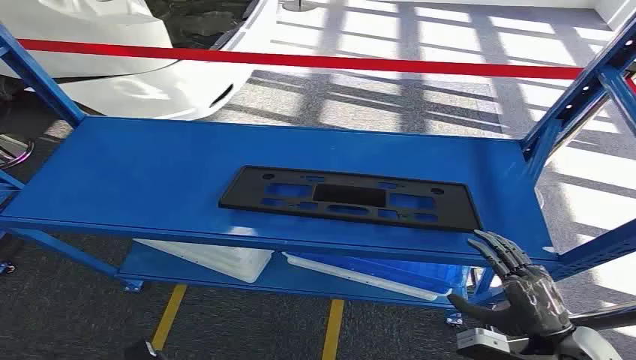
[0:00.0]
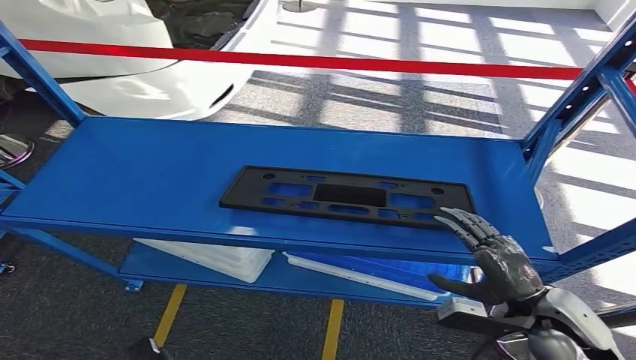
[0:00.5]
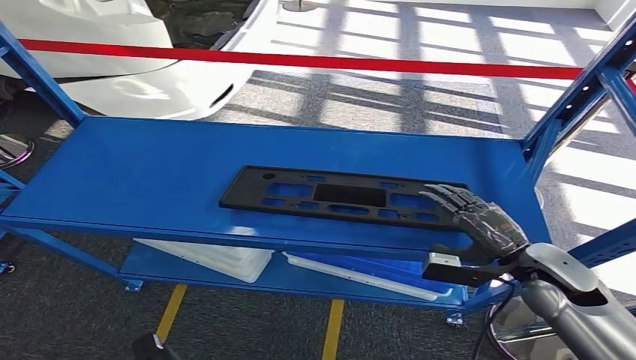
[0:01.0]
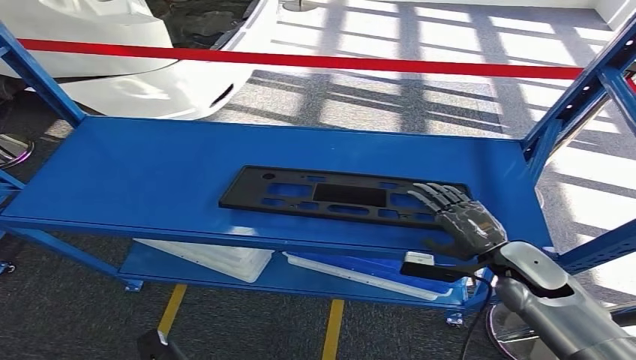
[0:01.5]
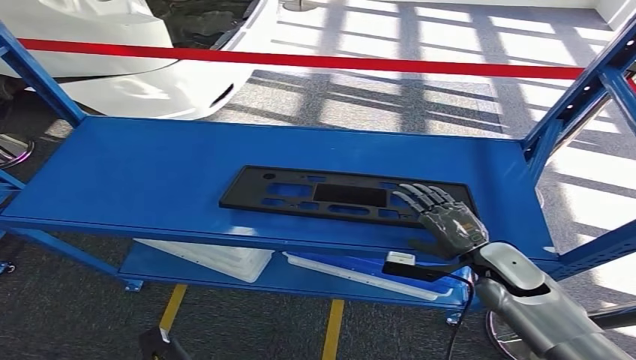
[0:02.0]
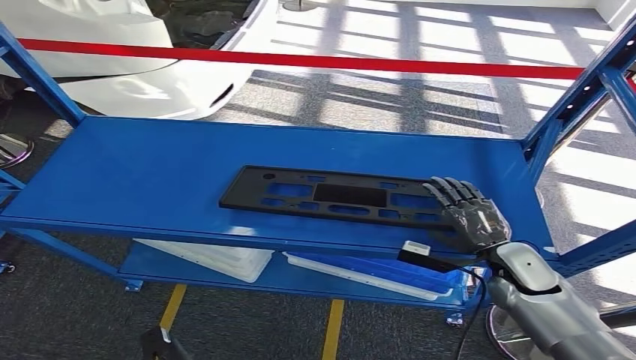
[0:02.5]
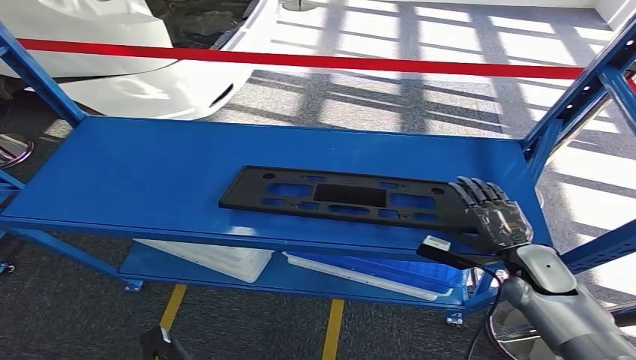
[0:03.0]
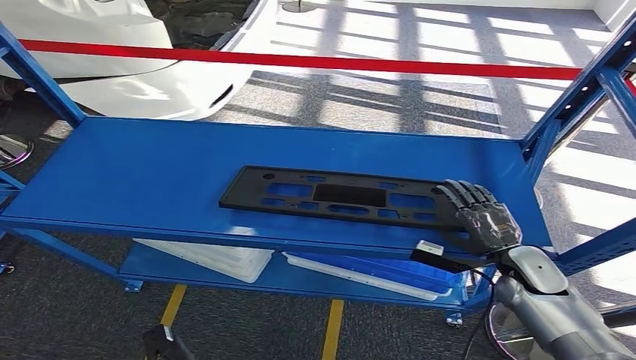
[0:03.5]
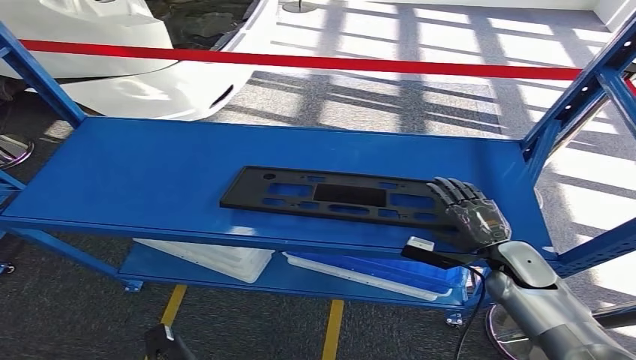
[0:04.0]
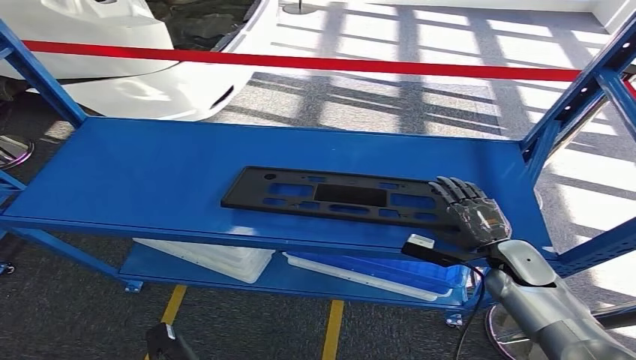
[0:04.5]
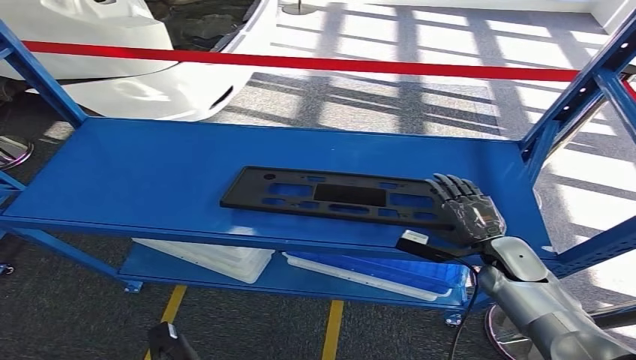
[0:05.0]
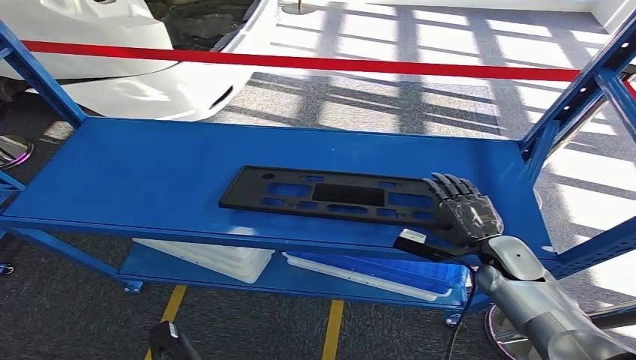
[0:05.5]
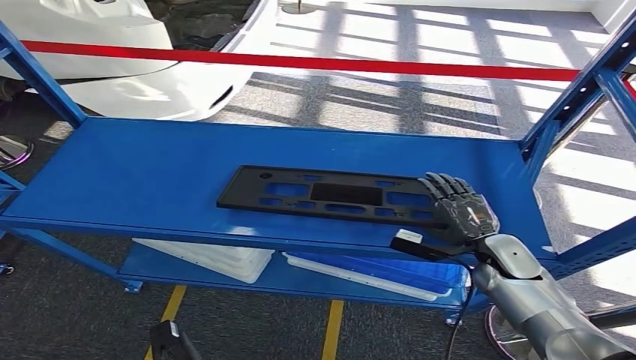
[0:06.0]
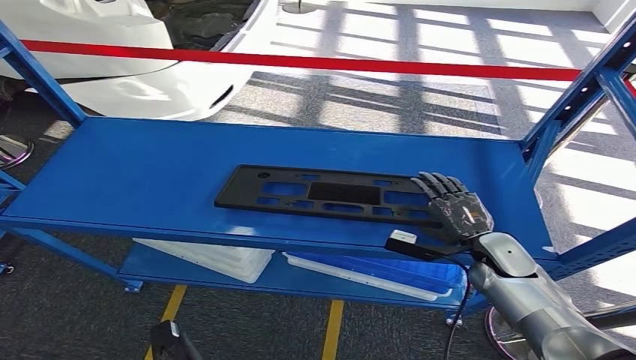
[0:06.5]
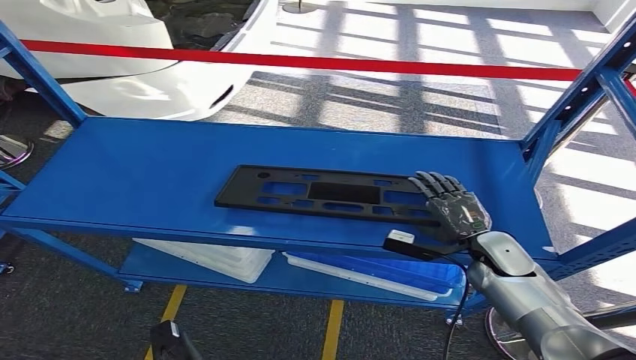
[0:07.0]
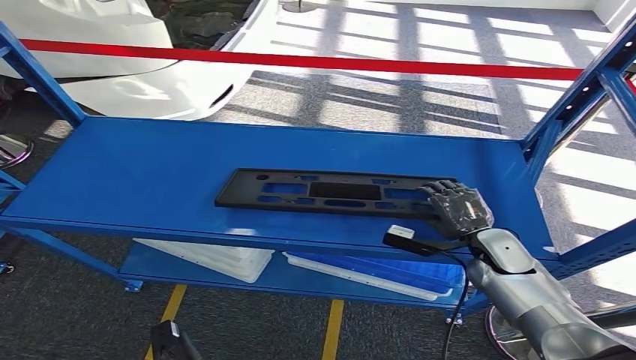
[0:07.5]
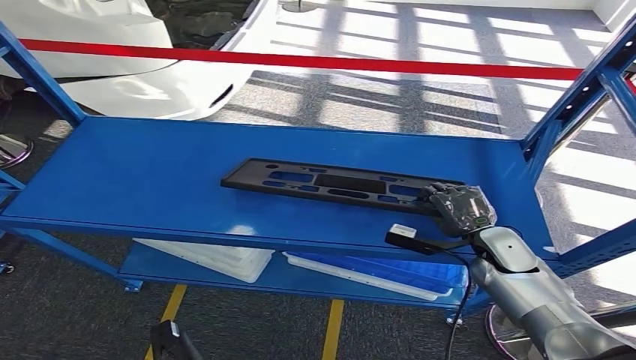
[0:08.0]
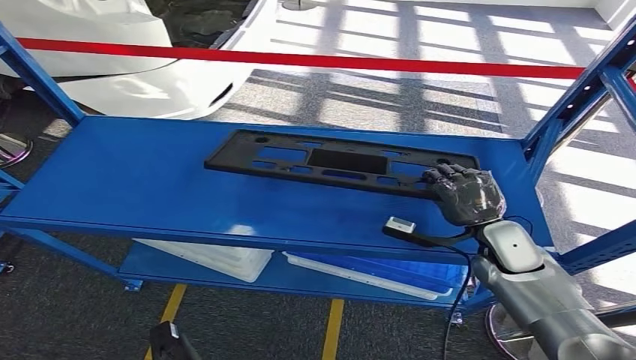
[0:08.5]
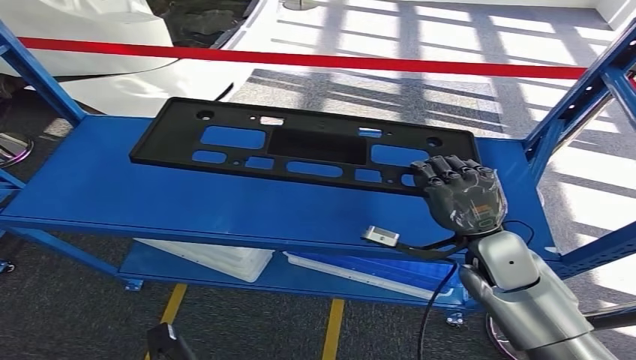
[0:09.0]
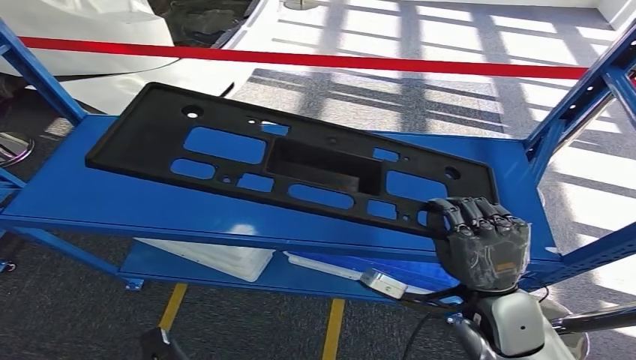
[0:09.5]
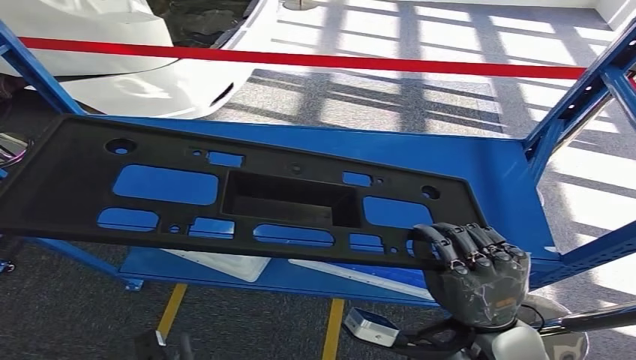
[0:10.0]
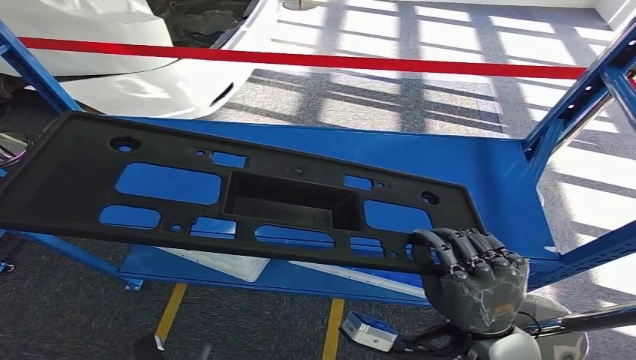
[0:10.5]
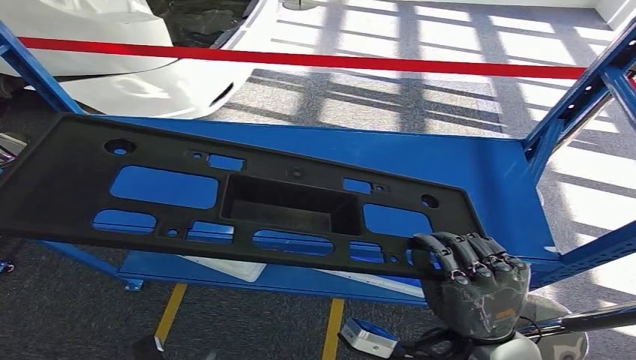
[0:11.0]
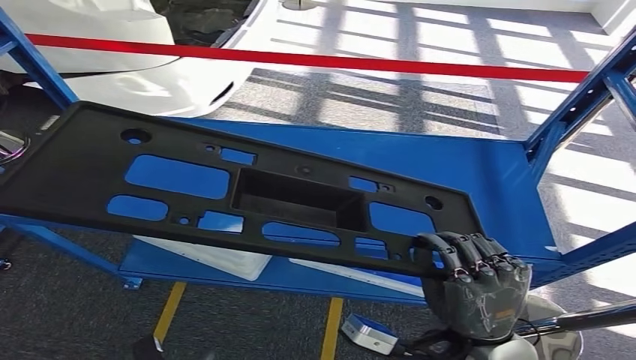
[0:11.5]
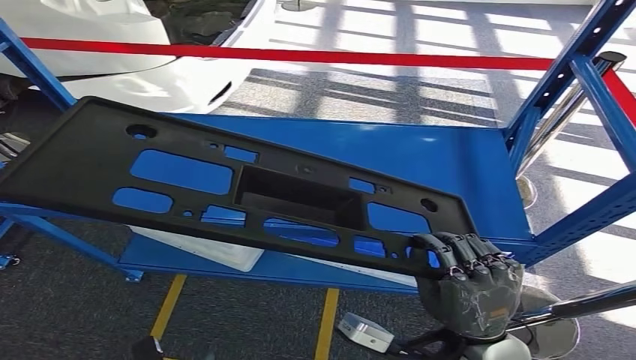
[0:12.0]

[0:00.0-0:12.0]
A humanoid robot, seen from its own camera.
Step, 0:00.0 to 0:09.0: Pick up the large material from the shelf.
0:02.0 to 0:08.0: The hands make only small movements.

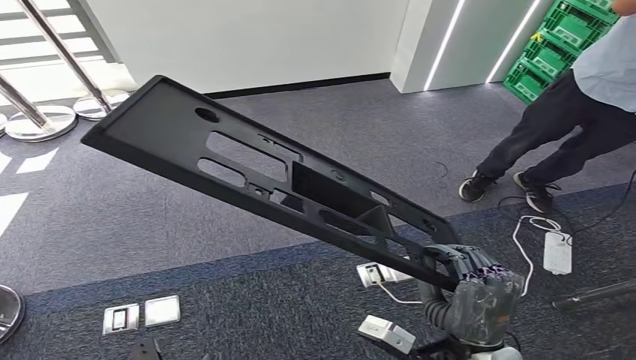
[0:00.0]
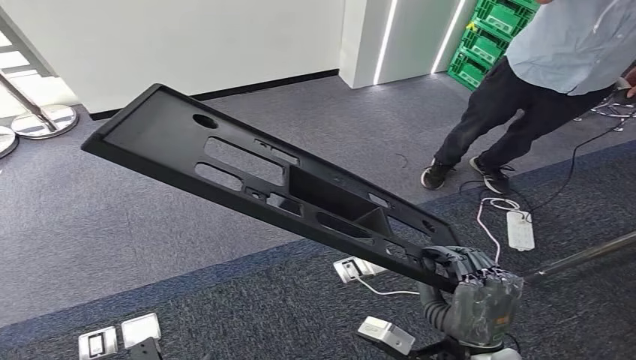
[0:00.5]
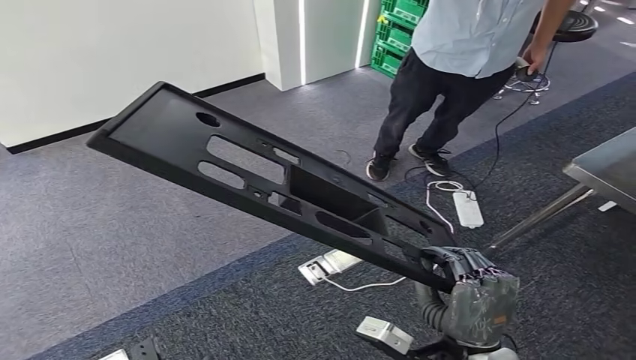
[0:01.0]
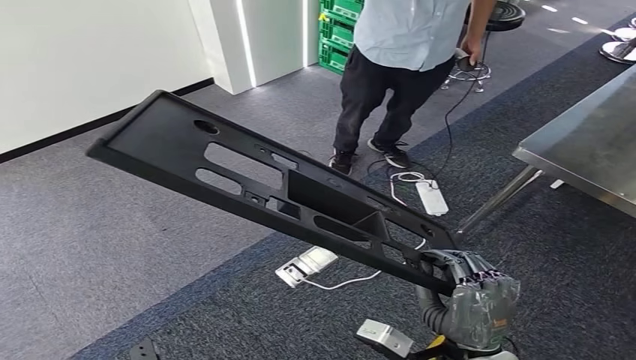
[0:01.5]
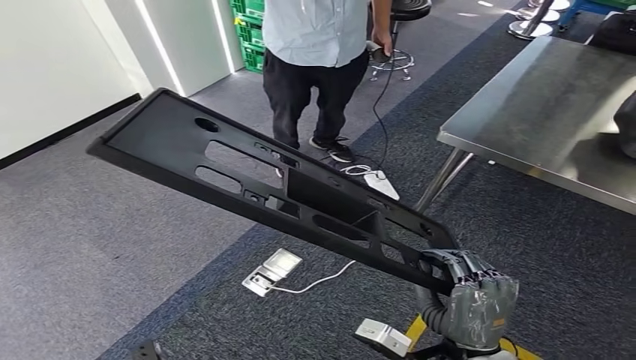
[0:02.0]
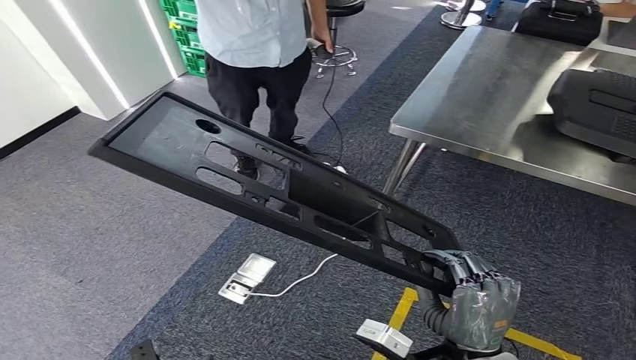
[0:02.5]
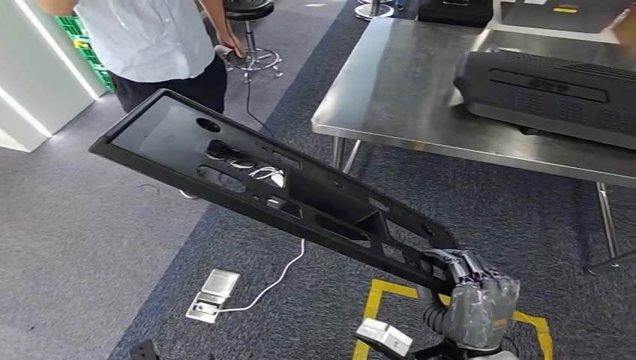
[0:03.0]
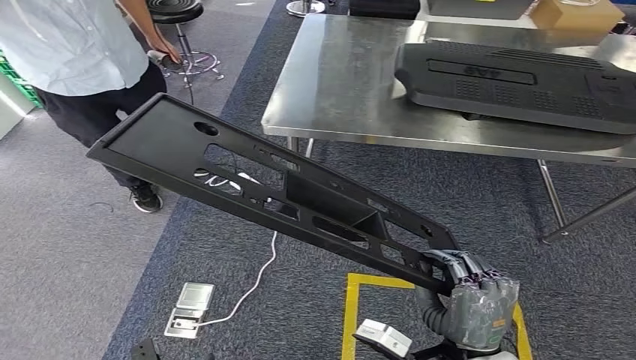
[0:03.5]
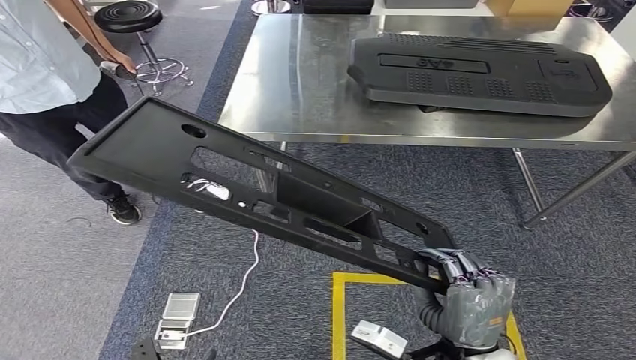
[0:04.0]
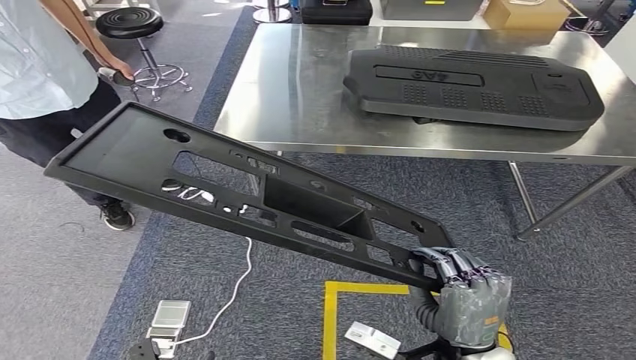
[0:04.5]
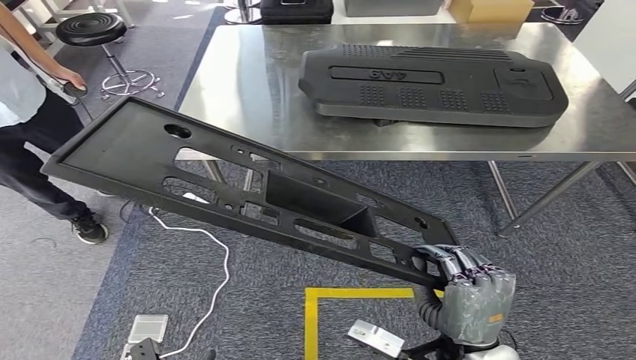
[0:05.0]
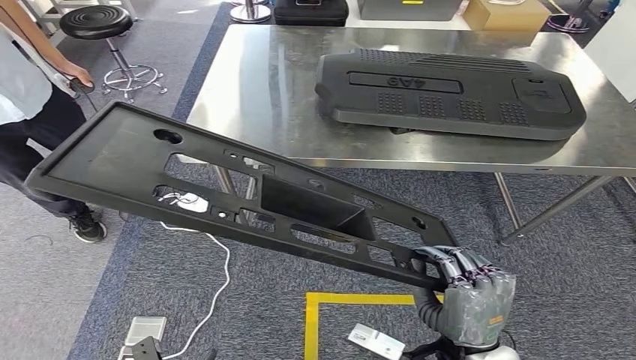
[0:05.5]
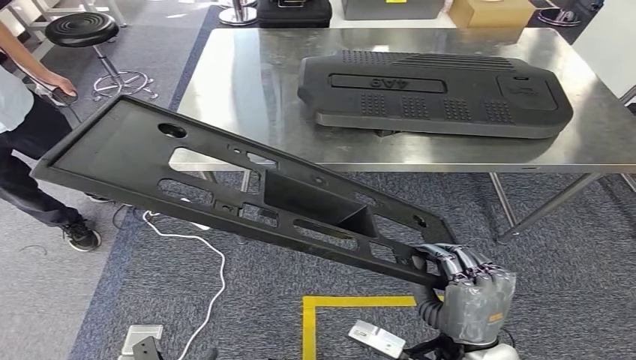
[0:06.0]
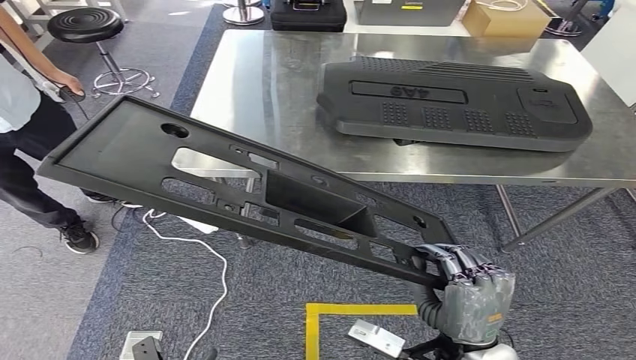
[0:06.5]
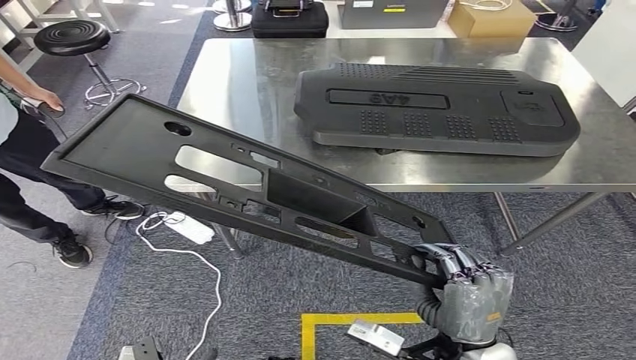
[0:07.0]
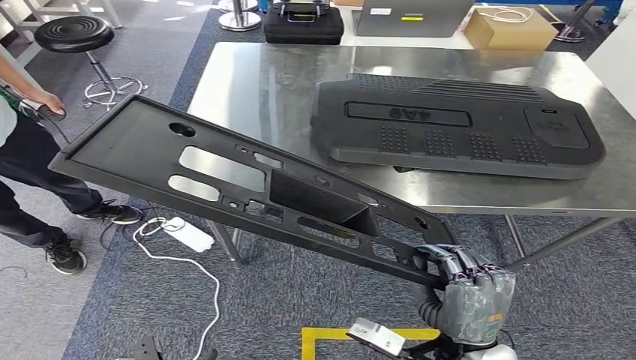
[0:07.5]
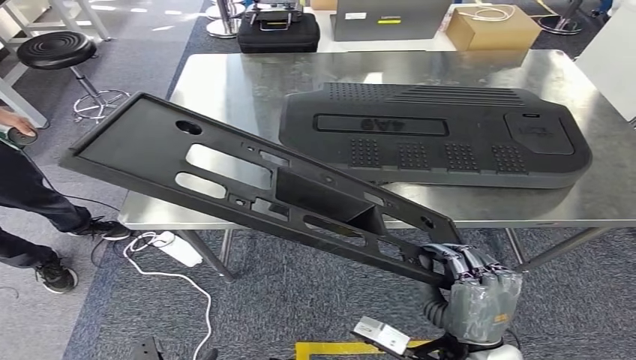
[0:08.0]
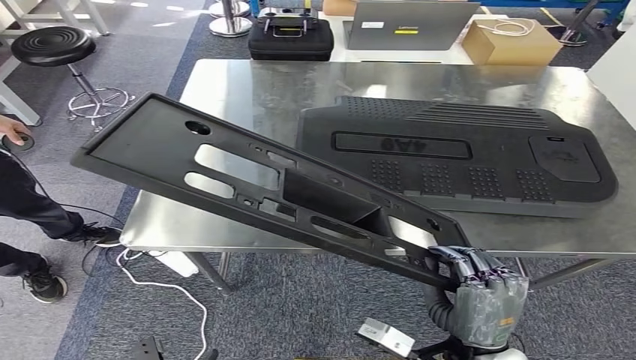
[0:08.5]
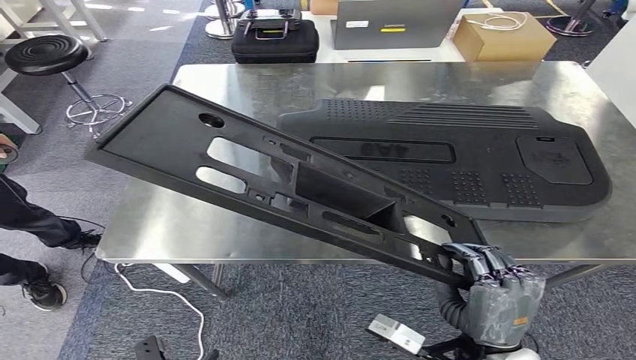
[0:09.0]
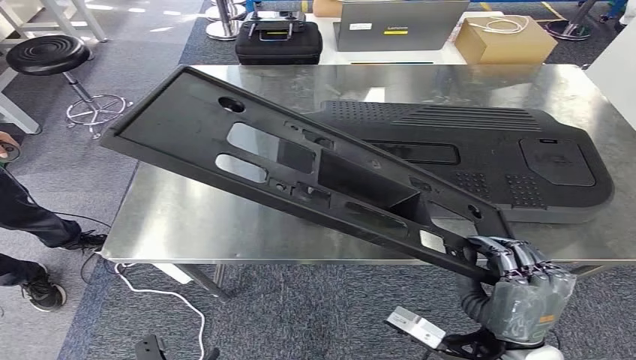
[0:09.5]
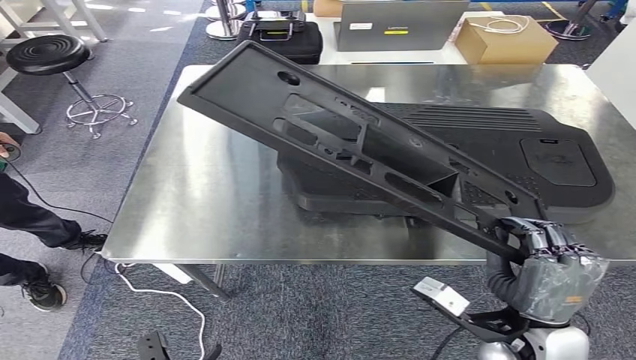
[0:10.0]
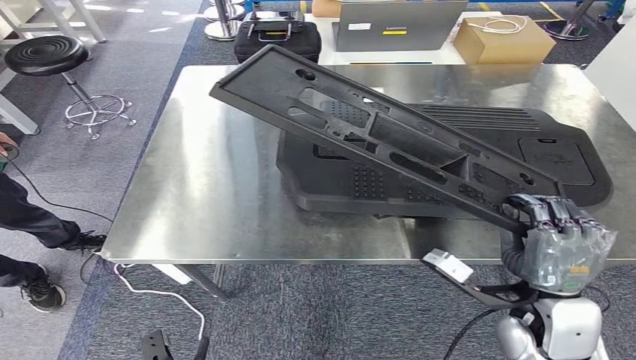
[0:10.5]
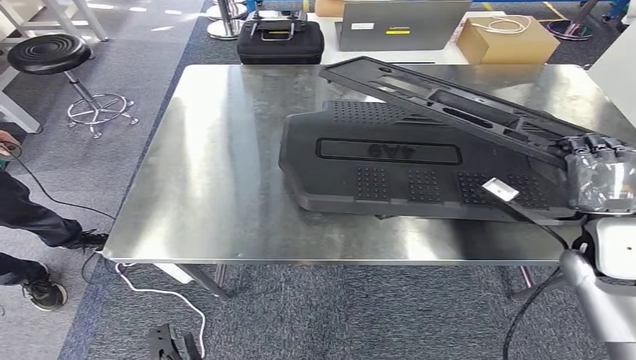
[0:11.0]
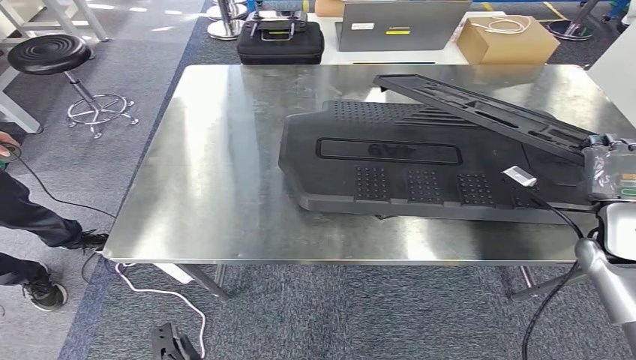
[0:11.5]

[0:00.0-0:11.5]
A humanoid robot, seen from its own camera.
Step, 0:00.0 to 0:08.0: Move the large material to the workbench.
